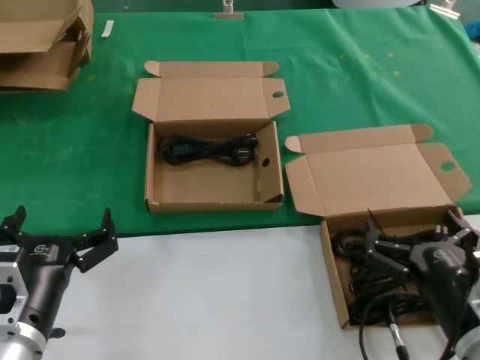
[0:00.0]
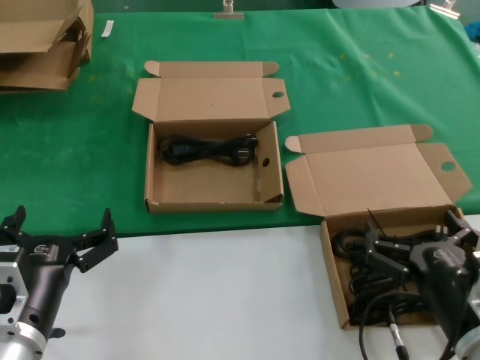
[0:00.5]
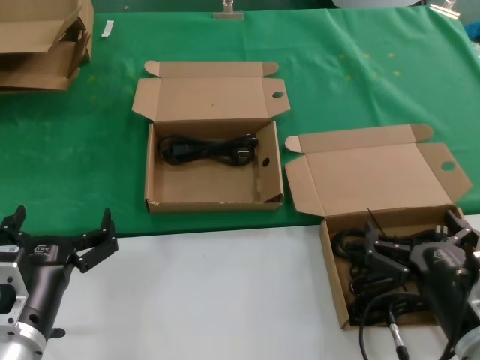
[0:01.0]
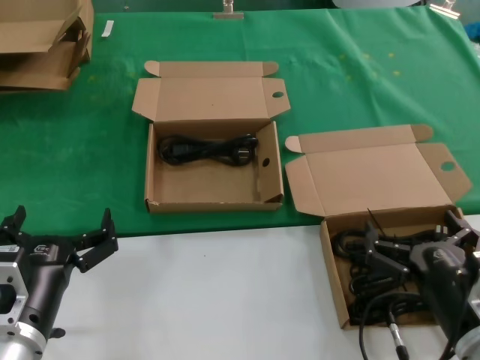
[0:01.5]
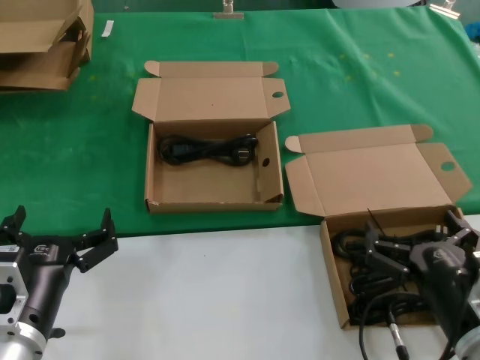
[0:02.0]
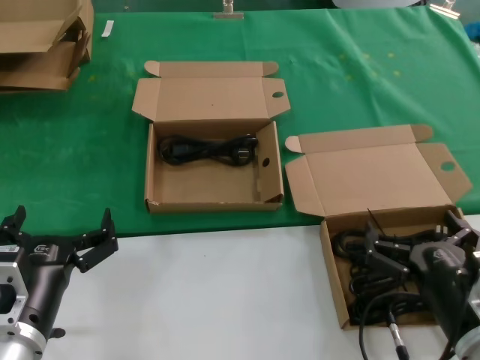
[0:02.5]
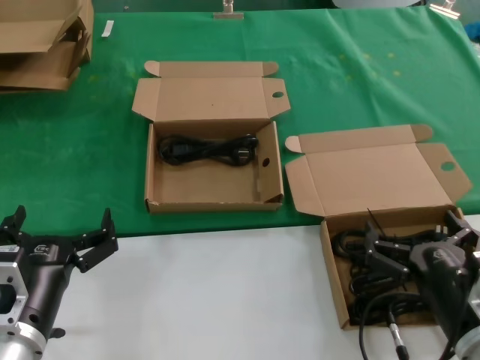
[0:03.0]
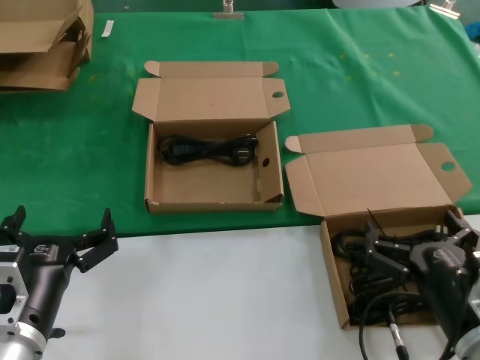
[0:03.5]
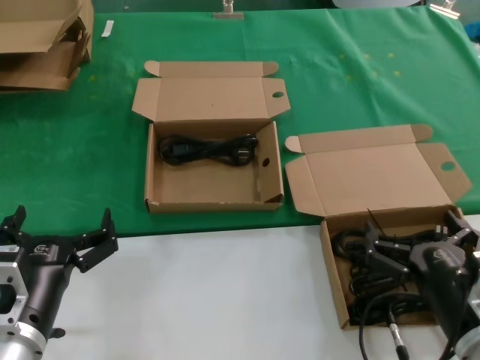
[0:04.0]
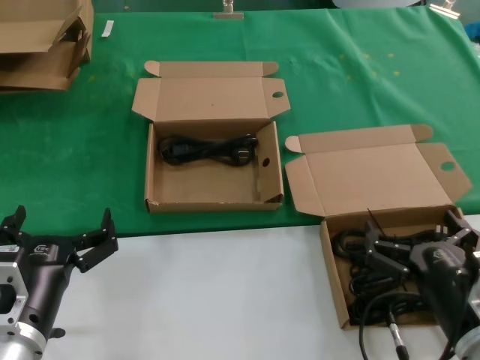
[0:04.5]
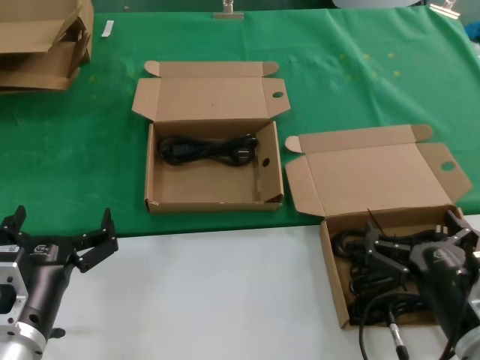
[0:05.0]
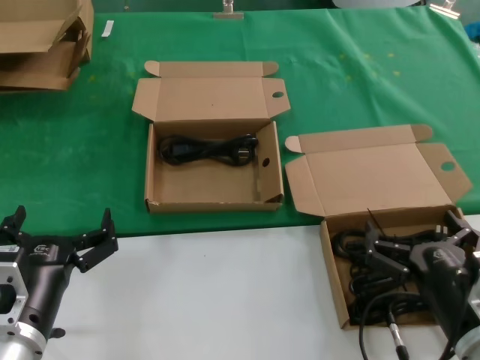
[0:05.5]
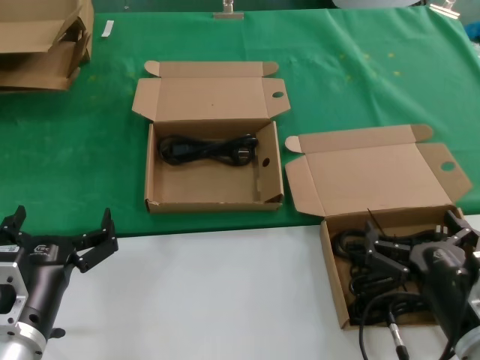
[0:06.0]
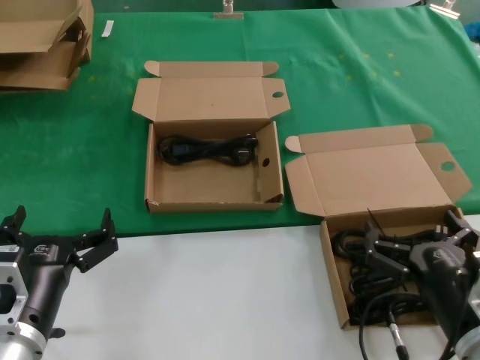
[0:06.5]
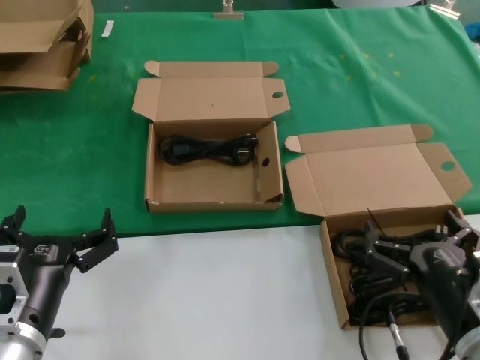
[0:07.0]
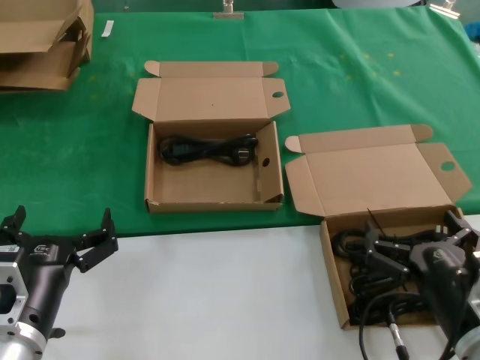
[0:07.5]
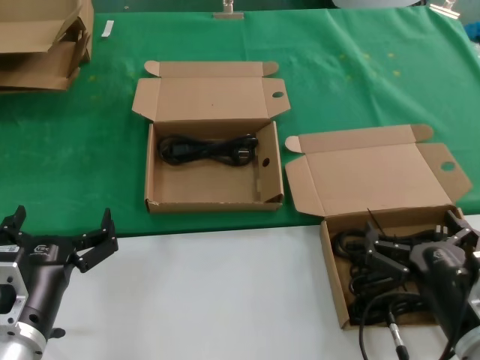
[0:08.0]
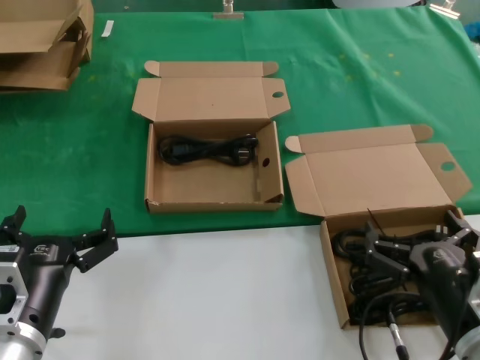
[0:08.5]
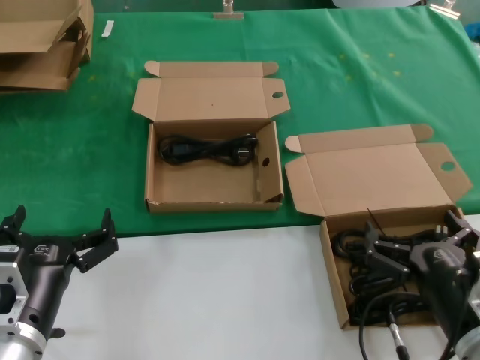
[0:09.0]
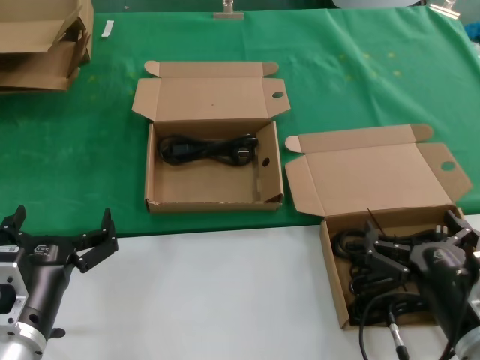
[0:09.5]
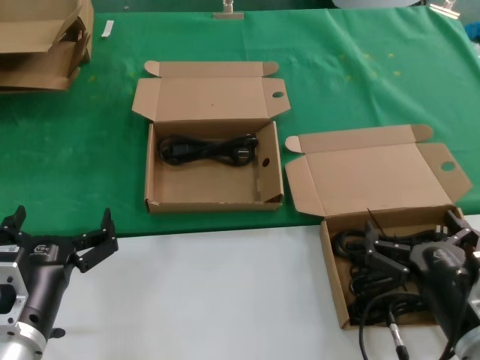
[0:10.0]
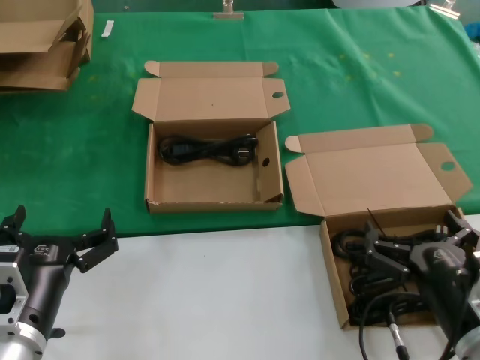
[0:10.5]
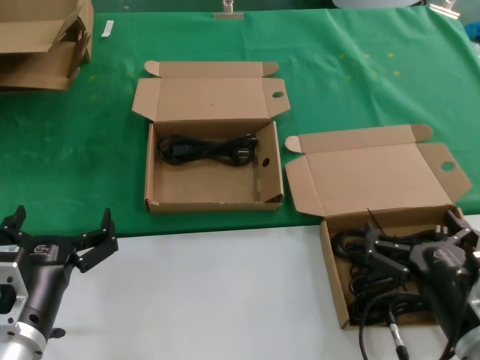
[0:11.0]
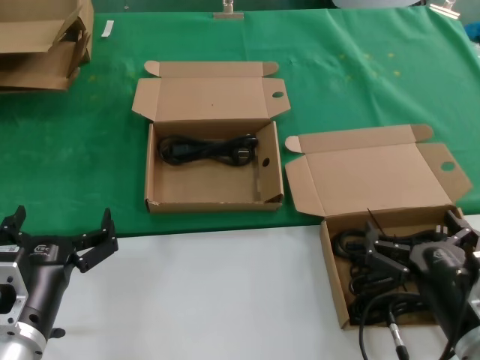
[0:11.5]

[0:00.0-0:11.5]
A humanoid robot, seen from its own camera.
Task of the whole recording: take the parts from the box containing them and put them into an empty box.
0:00.0 to 0:11.5: Both hands stay put.
